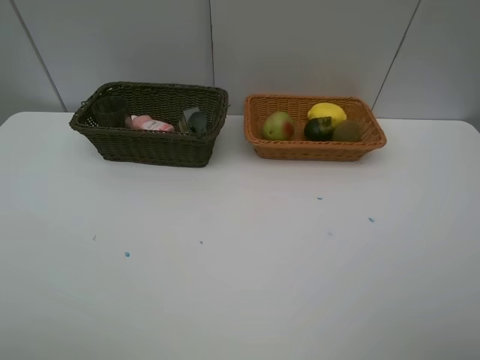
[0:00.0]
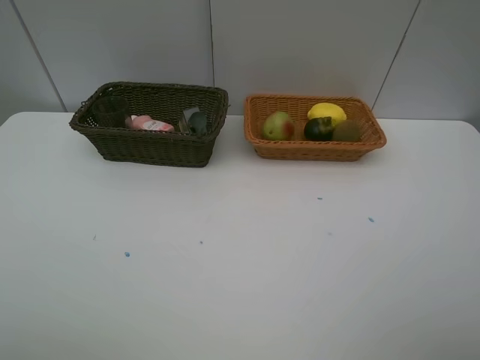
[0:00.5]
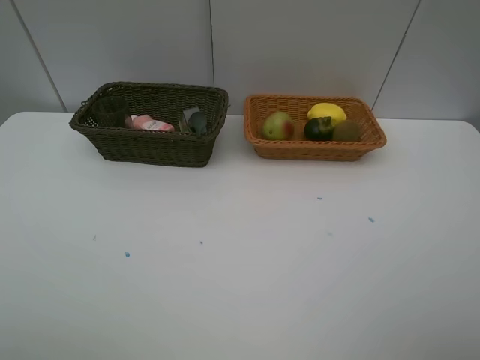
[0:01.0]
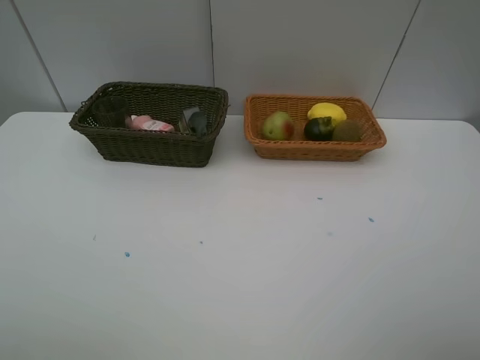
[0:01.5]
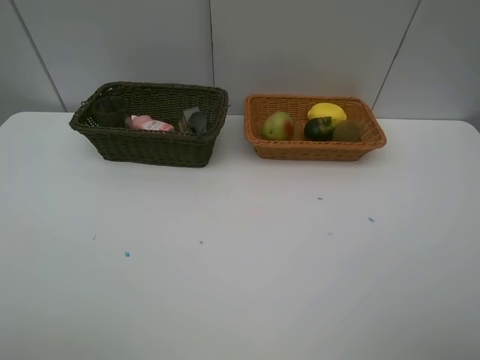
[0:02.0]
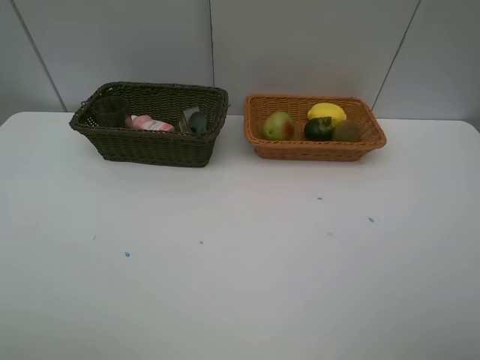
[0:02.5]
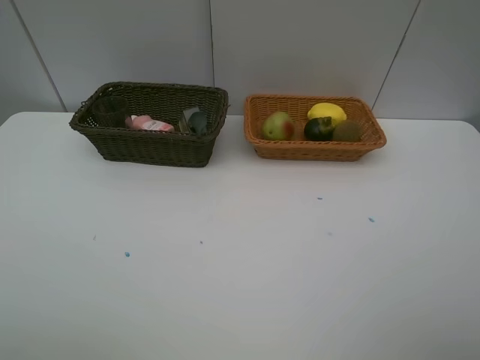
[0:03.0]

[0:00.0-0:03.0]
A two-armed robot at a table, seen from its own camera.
Task of the whole recording: Place multiple objects separately in different baskets.
0:01.5 to 0:03.0: Both grippers stay about where they are.

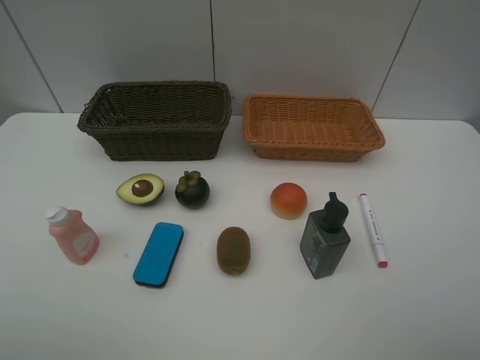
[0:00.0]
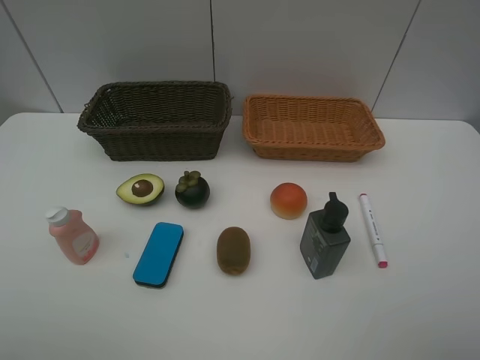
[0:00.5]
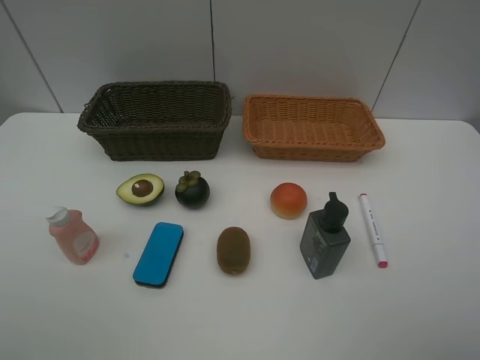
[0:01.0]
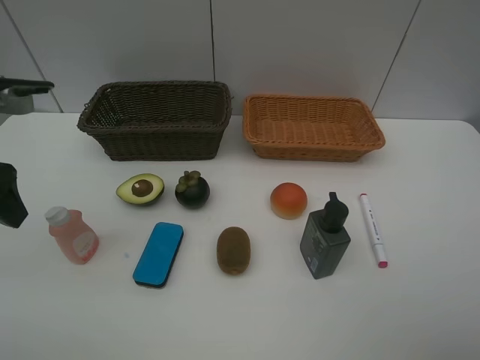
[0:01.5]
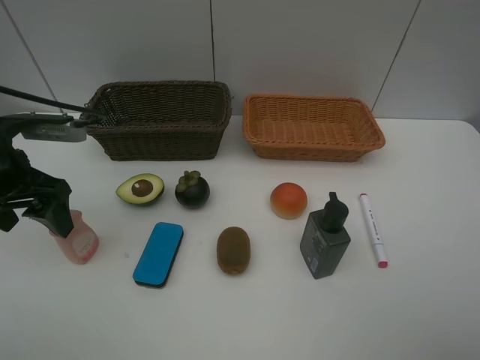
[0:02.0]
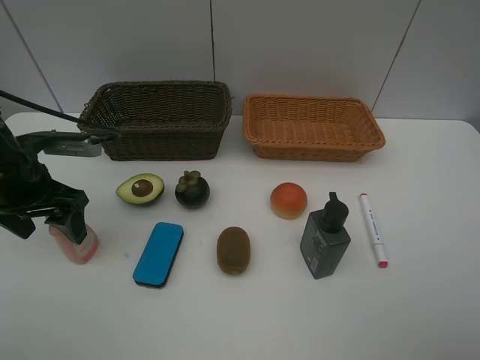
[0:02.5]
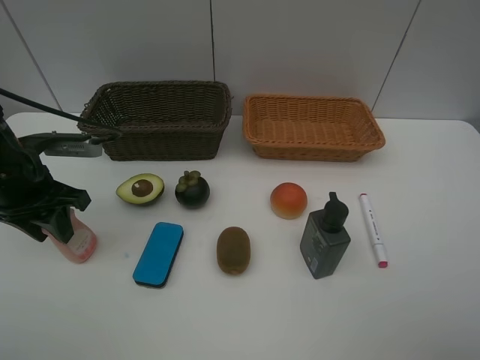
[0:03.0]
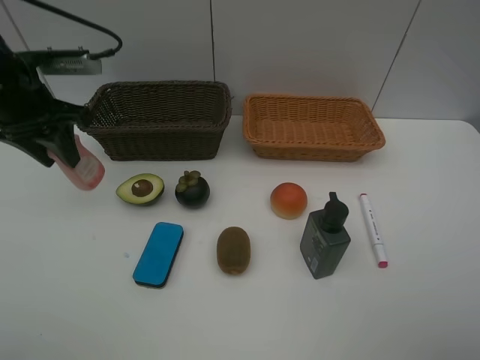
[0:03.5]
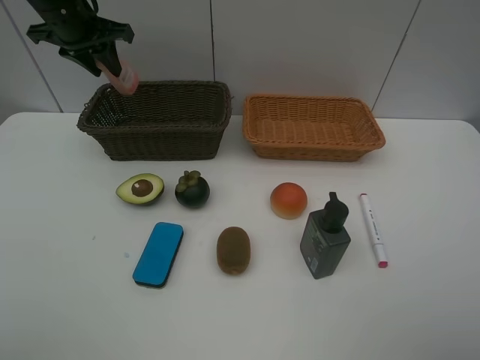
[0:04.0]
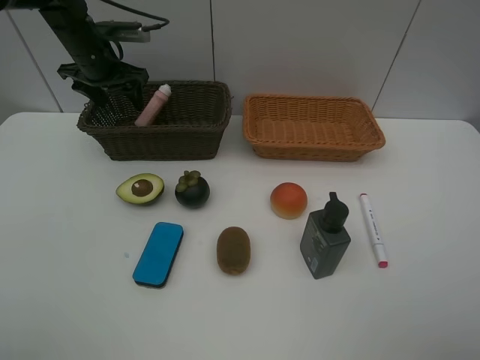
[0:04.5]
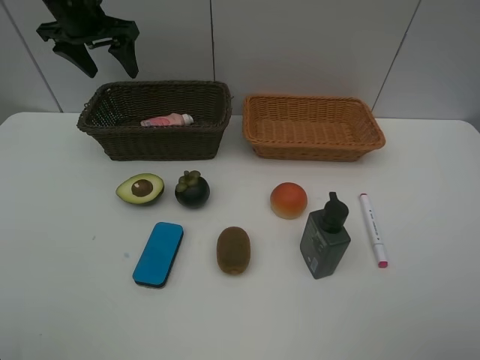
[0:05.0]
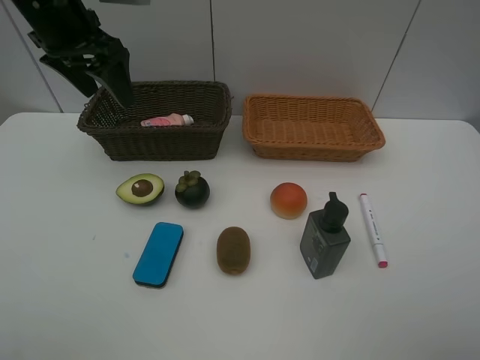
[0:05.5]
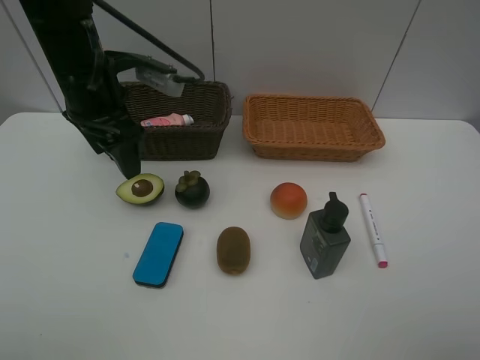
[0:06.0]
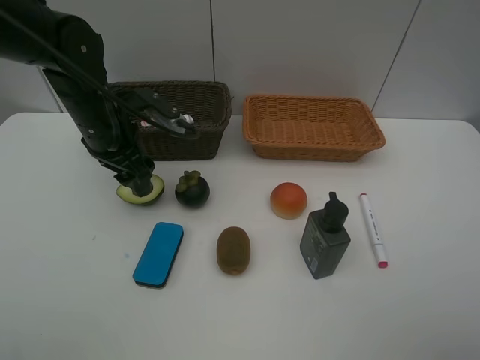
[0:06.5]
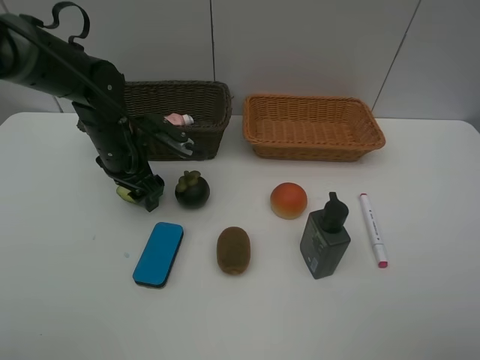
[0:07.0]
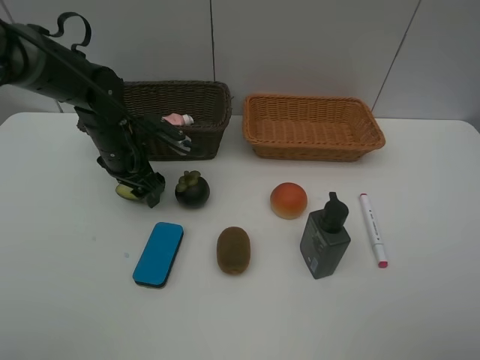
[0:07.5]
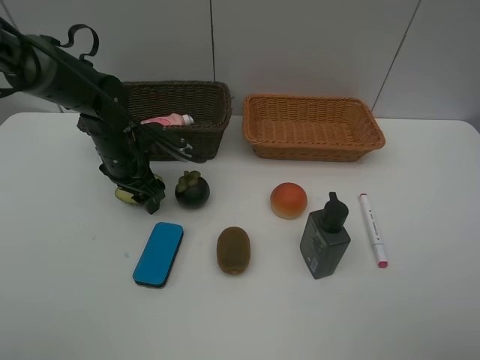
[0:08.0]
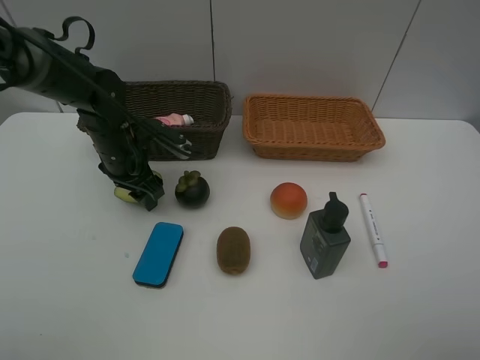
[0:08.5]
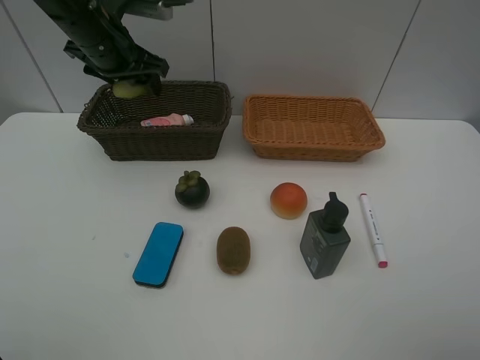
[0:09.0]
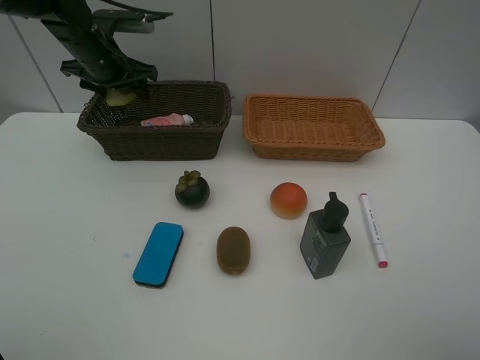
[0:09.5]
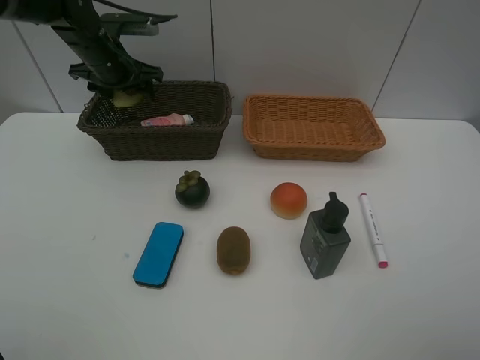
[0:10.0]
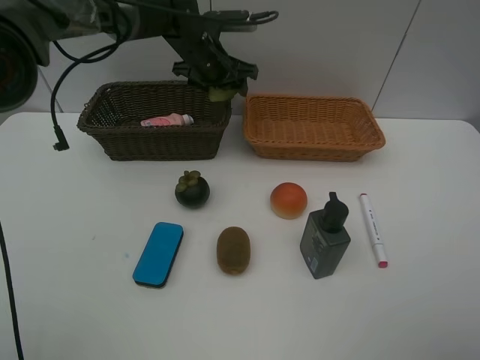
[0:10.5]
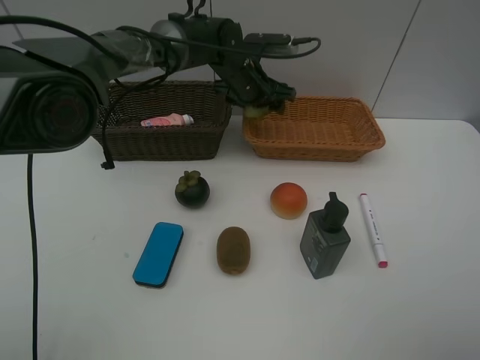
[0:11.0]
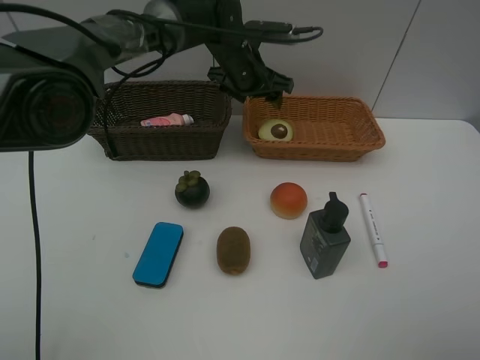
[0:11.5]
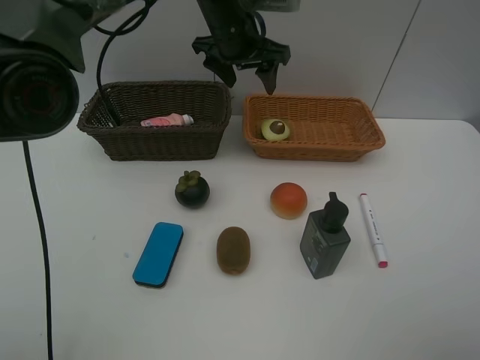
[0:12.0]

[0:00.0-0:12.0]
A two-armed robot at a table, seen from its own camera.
Task of the whole recording: Place multiple objects separately in different baskets.
Step, 0:00.0 to 0:03.0: Pick up the laundry detergent with left gripper.
Step, 0:03.5 to 0:04.5: Place the laundry detergent in the dark basket with left gripper.
Step, 0:05.0 to 0:08.5: Pick up the avocado with left gripper.
Step, 0:09.0 to 0:11.5: Place the avocado in the light basket with left gripper.
0:00.0 to 0:02.0: The left gripper shifts approximately 25 cm forward.
0:02.0 to 0:04.0: The left gripper heads forward, covering roughly 20 cm, and closes.
0:04.0 to 0:06.0: The left gripper travels backward and to the right by some 15 cm, and opens its fingers.
0:06.0 to 0:08.0: The left gripper shifts roughly 15 cm downward.
0:08.0 to 0:10.0: The left gripper travels forward and upward by approximately 15 cm.
0:10.0 to 0:12.0: The left gripper moves to the right, approximately 20 cm.

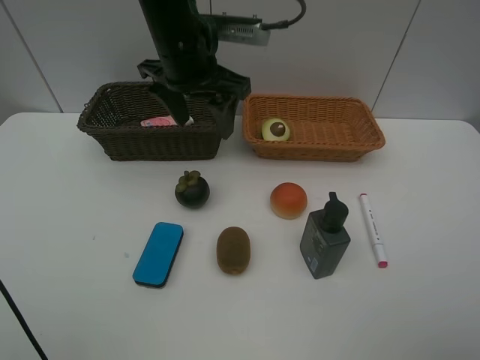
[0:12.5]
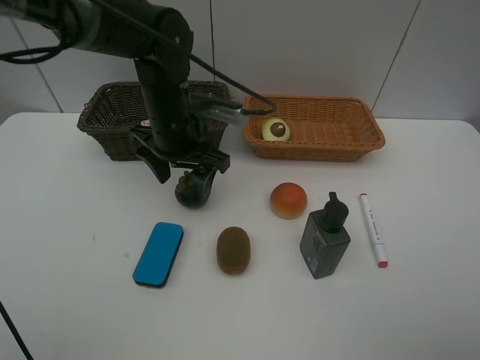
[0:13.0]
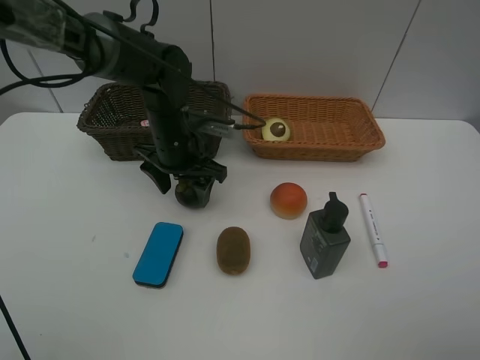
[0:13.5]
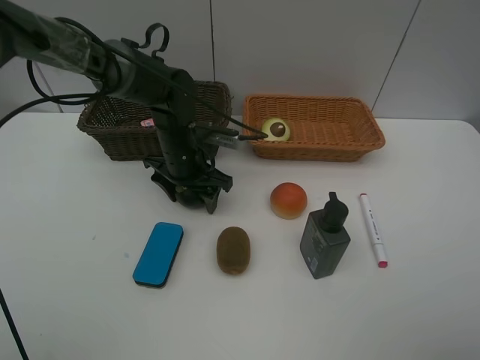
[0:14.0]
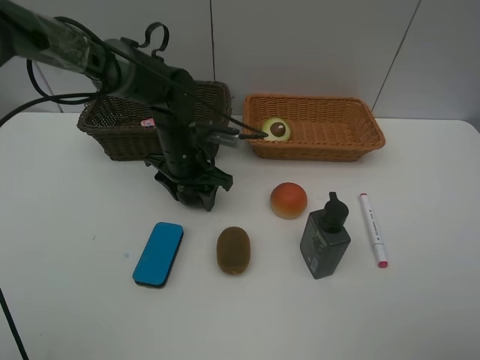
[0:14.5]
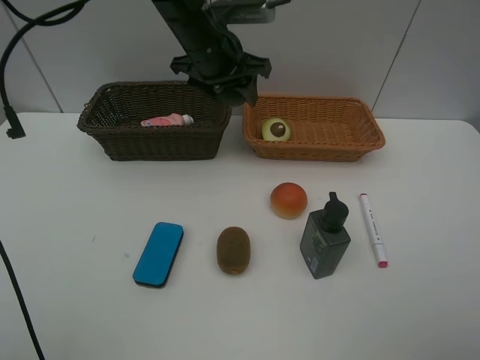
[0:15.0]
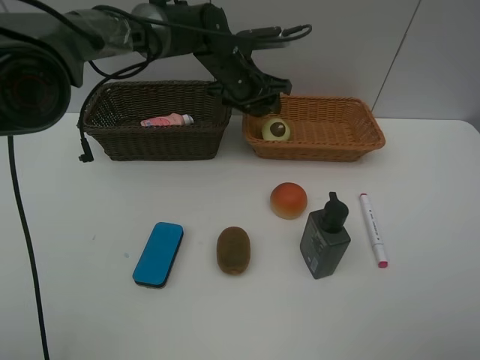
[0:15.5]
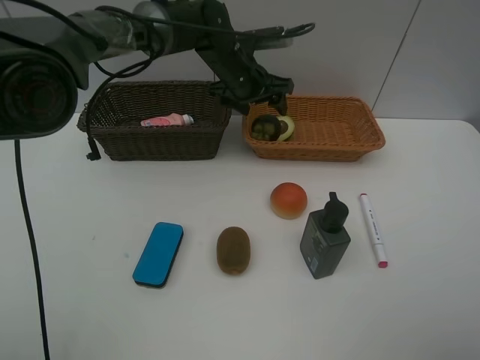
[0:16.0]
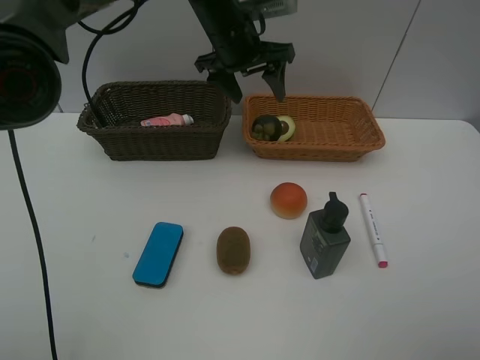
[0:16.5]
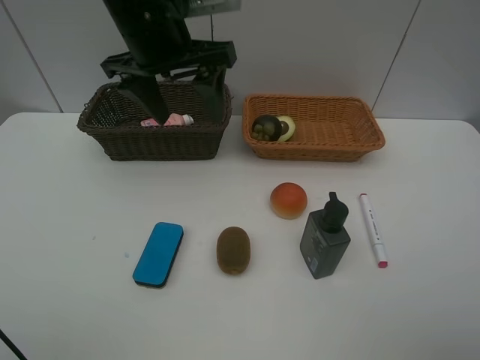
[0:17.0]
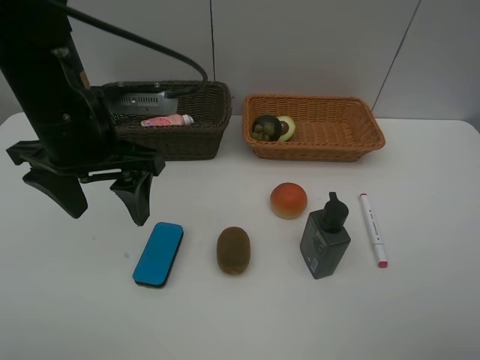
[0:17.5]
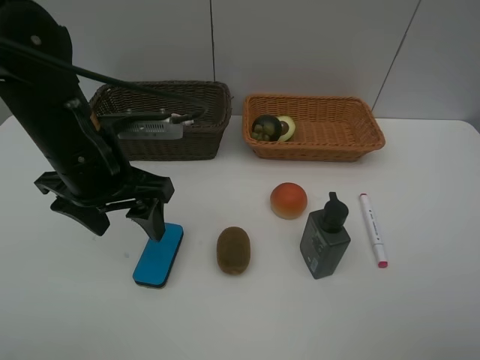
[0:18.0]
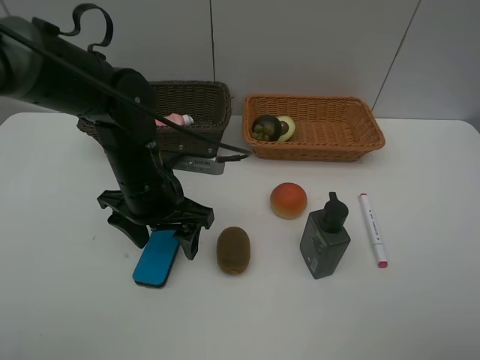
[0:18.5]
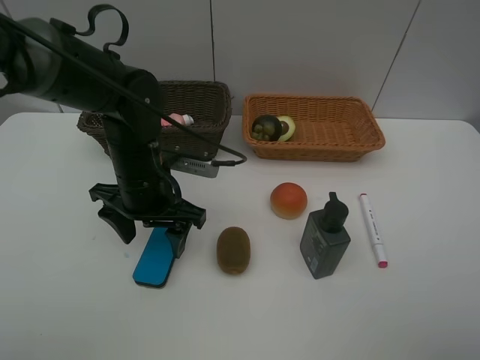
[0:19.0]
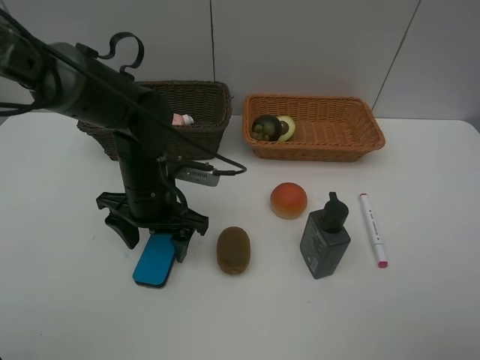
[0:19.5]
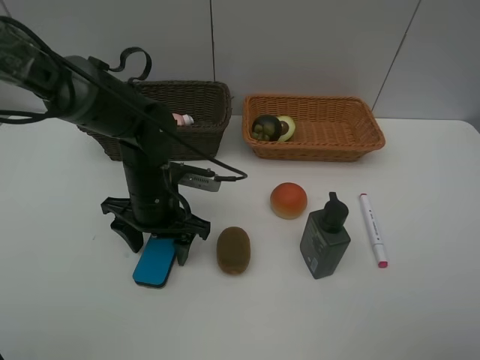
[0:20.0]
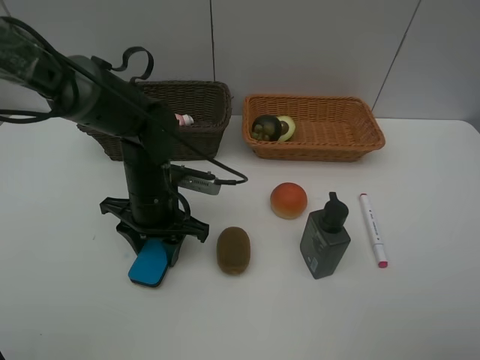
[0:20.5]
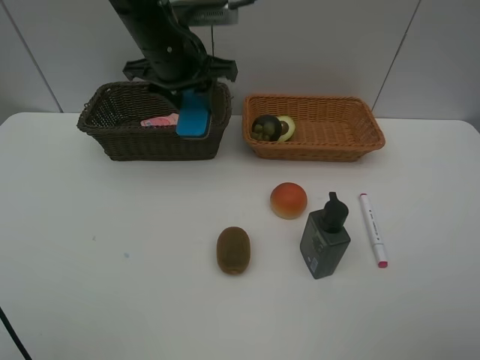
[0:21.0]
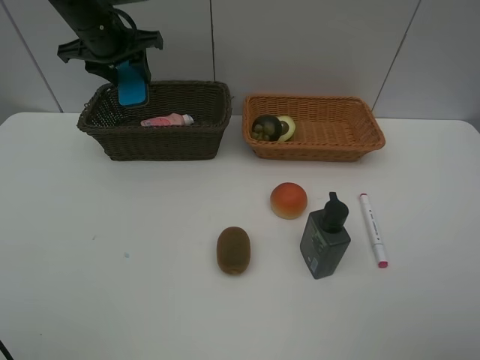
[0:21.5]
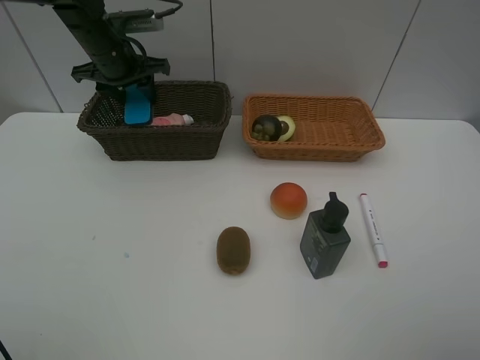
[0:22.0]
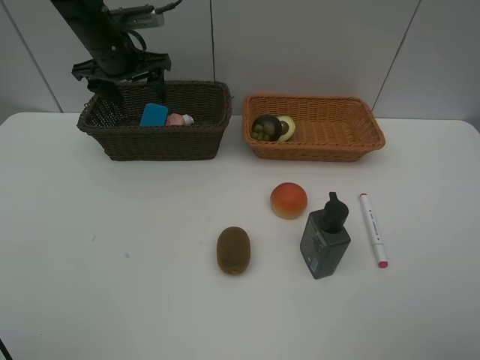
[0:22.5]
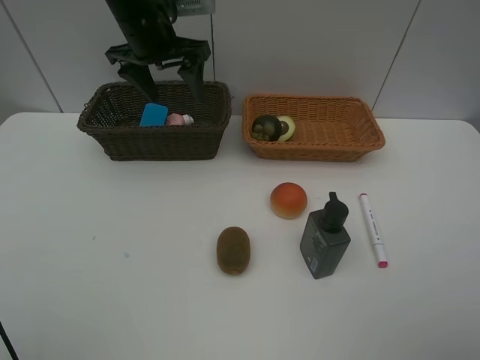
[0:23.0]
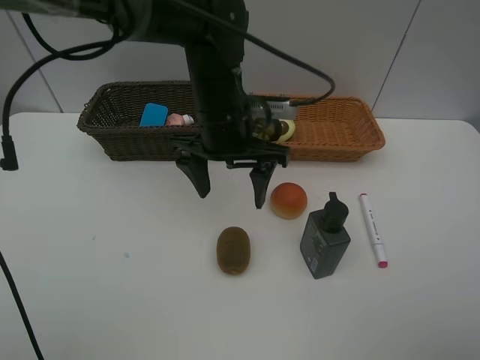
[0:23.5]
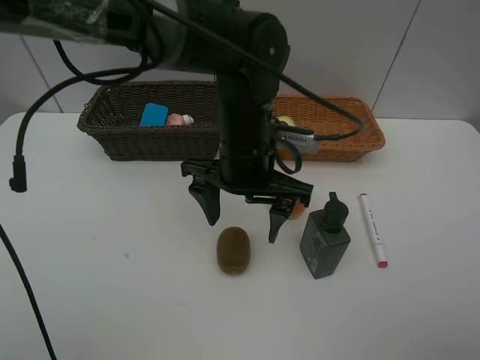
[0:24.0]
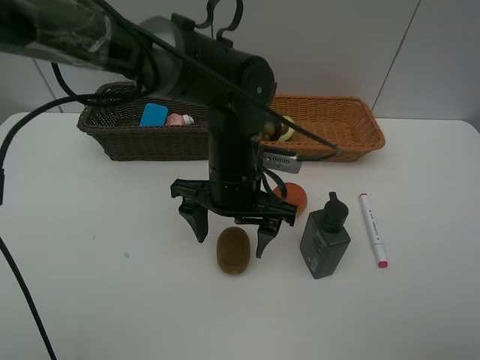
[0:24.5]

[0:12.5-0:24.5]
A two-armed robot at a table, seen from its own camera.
Task of the whole recording: Place multiple objects separately in different baskets.
Step, 0:12.5 to 0:14.5: Pick up the mangosteen with left gripper.
Step, 0:15.0 to 0:15.5: Place the mangosteen in the light basket with left gripper.
Step, 0:16.0 to 0:20.5: Pick up blackboard eraser with left gripper.
Step, 0:21.0 to 0:22.5: Place the blackboard eraser in the dark basket with left gripper.
0:12.5 to 0:14.5: The left gripper shifts some 15 cm downward.
0:14.5 to 0:16.5: The left gripper goes up and down, approximately 15 cm each way, reversing 2 times.
0:16.5 to 0:18.5: The left gripper travels backward, downward and to the left by approximately 25 cm.
0:18.5 to 0:20.5: The left gripper closes its fingers.
0:20.5 to 0:22.5: The left gripper is displaced forward, upward and to the left by approximately 25 cm, and opens its fingers.
0:22.5 to 0:24.5: The left gripper is displaced to the right and backward by roughly 30 cm.
